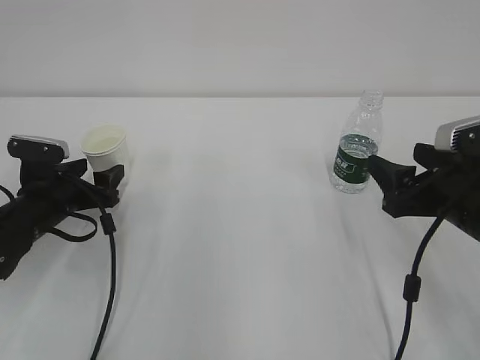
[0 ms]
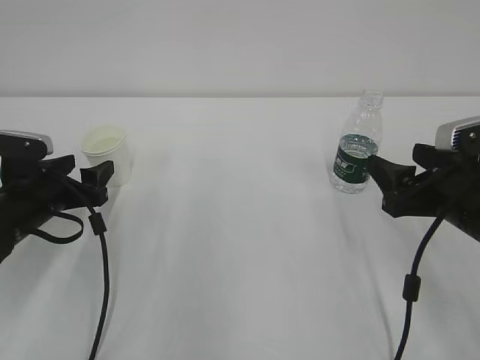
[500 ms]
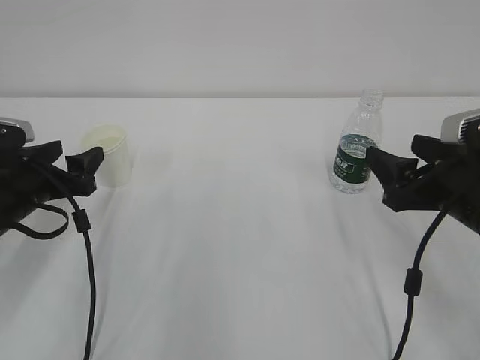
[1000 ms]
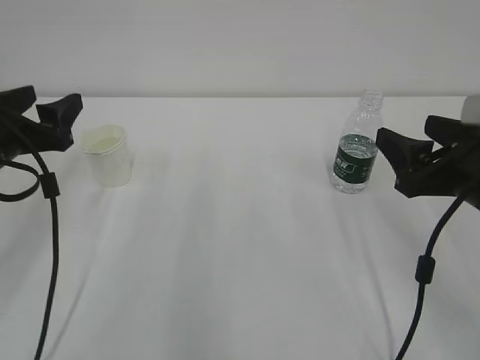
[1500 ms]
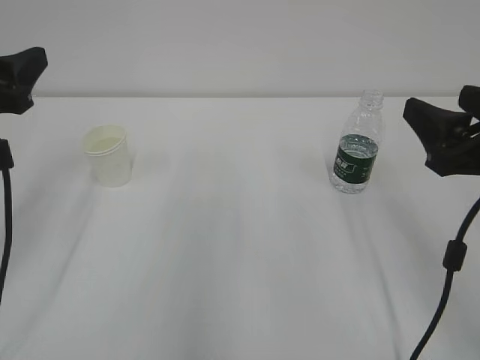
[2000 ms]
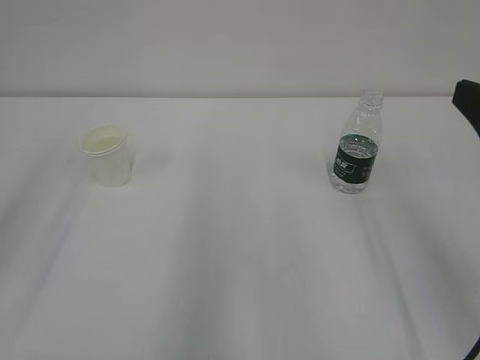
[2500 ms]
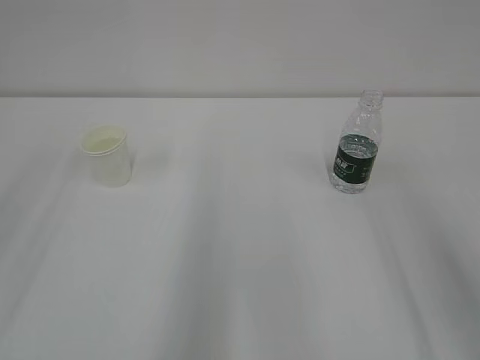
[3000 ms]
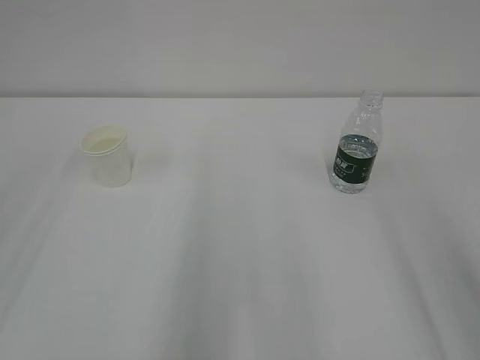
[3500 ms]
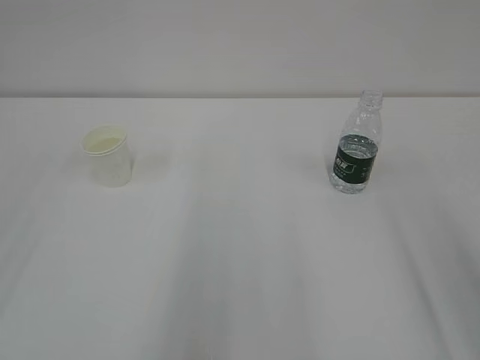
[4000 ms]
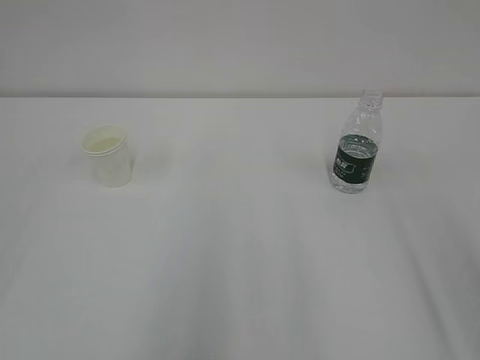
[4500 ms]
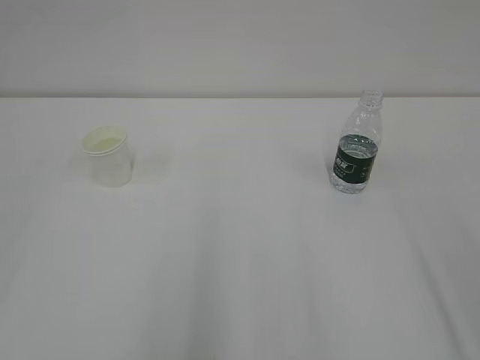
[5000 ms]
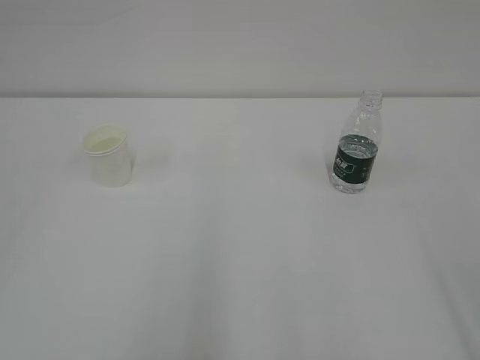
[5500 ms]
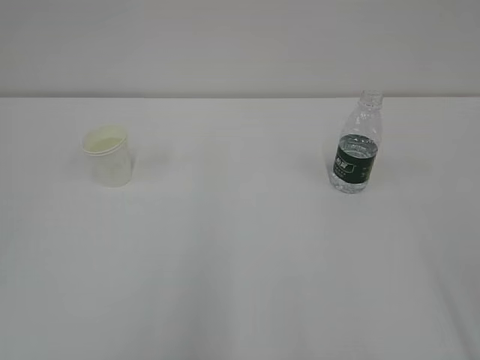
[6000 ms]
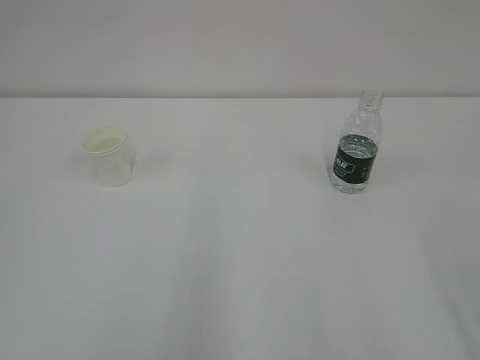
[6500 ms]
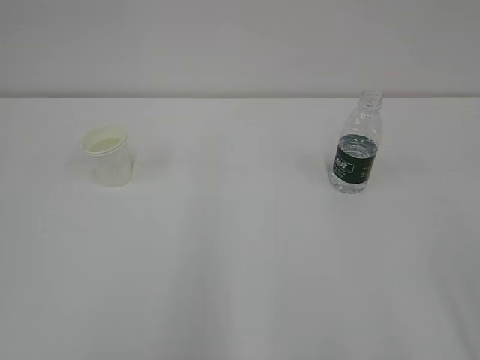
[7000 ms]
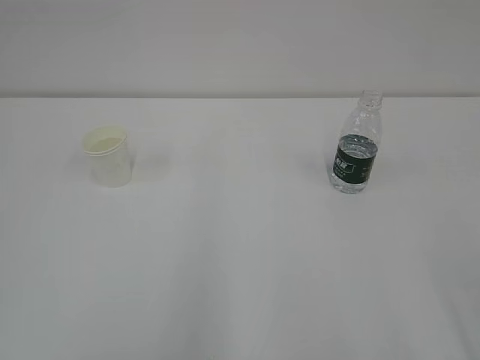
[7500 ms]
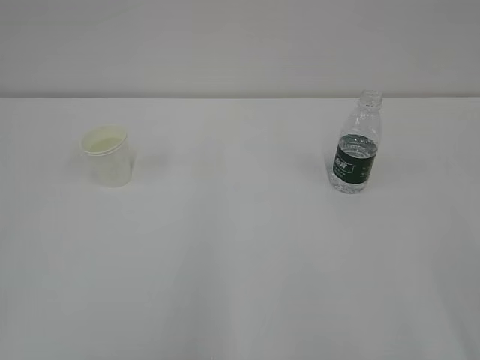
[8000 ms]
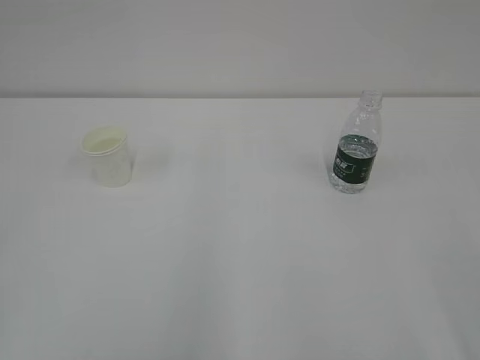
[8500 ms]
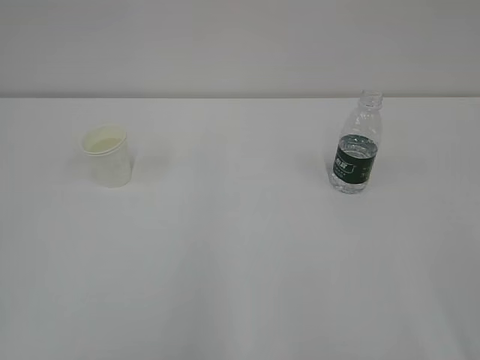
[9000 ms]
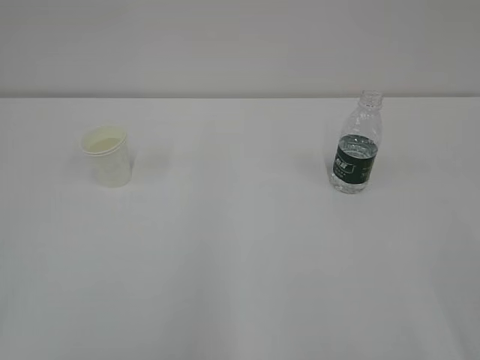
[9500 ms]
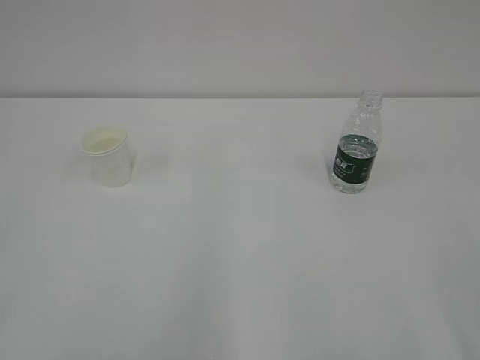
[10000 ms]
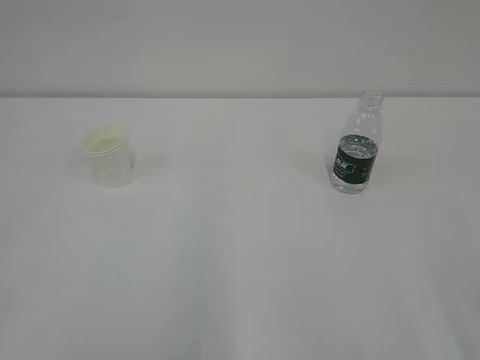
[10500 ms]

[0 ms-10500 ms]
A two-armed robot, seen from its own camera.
0 ms to 2000 ms: The right gripper shifts approximately 10 cm upward. Meanwhile the left gripper shifts about 20 cm upward and backward.
2000 ms to 4000 ms: The two grippers go some 15 cm backward and upward.
8500 ms to 10500 ms: The two grippers keep their place.
